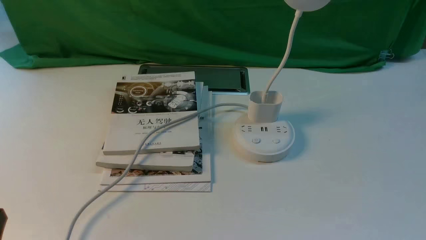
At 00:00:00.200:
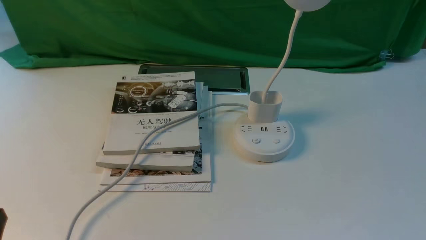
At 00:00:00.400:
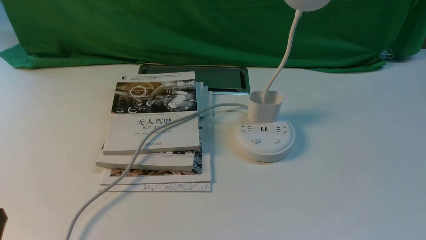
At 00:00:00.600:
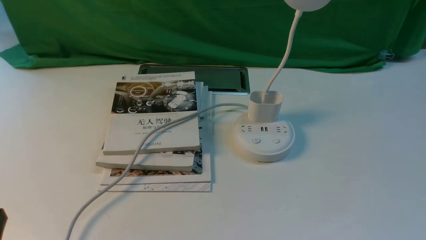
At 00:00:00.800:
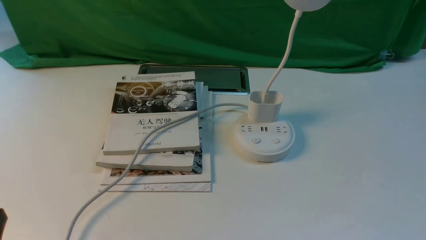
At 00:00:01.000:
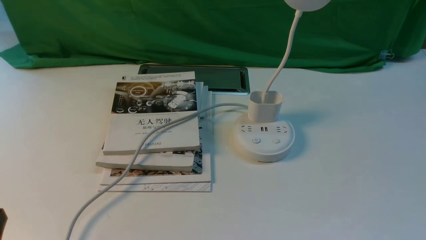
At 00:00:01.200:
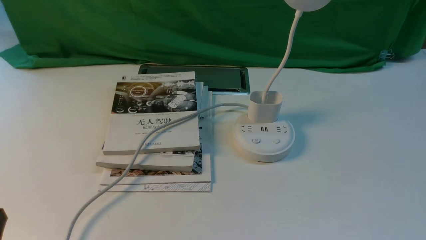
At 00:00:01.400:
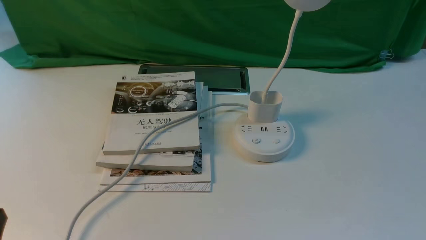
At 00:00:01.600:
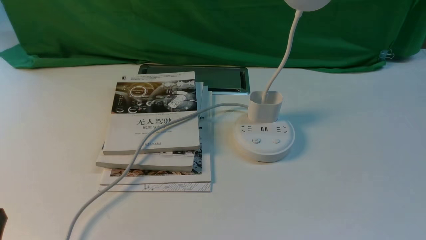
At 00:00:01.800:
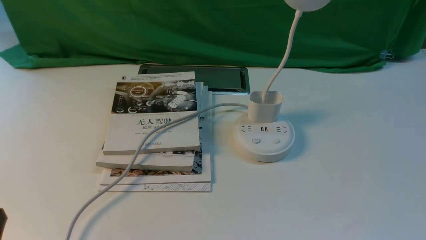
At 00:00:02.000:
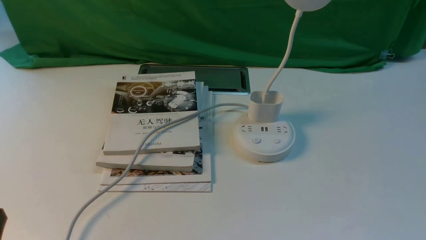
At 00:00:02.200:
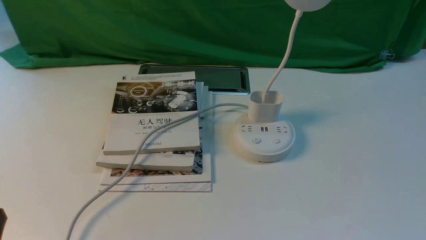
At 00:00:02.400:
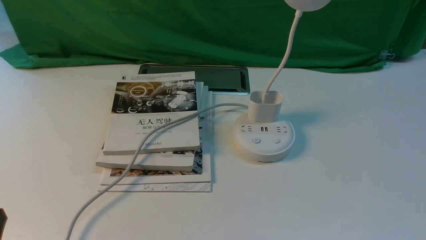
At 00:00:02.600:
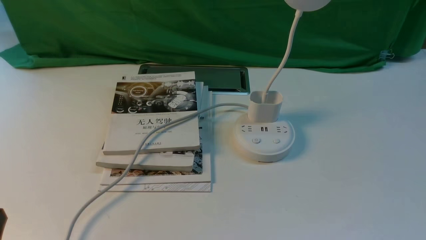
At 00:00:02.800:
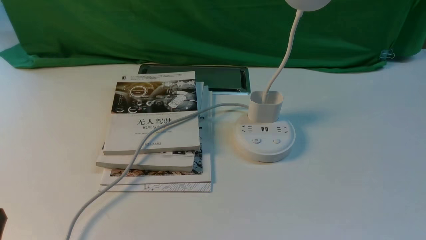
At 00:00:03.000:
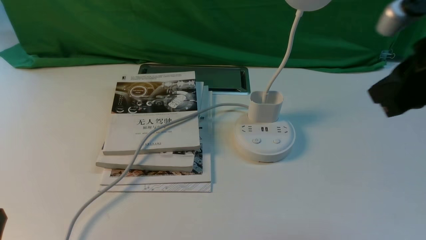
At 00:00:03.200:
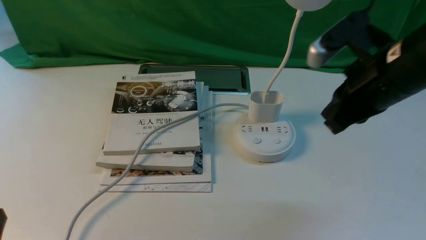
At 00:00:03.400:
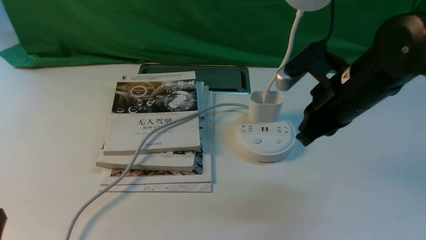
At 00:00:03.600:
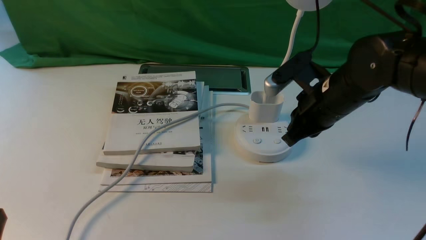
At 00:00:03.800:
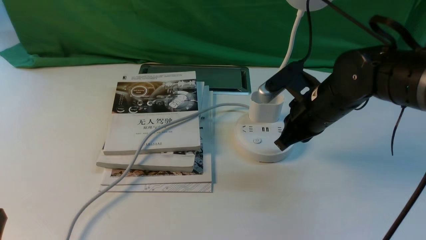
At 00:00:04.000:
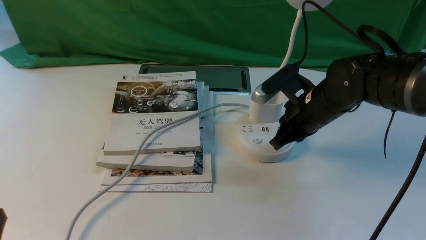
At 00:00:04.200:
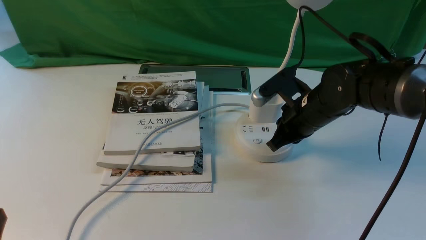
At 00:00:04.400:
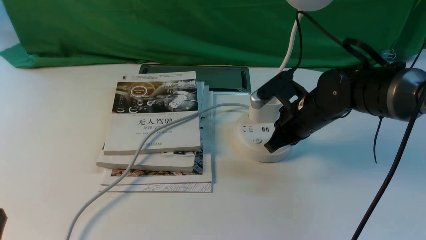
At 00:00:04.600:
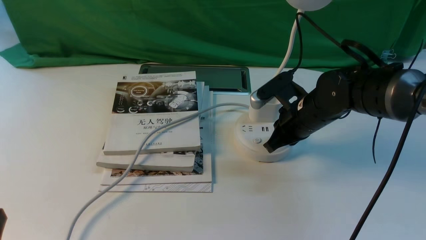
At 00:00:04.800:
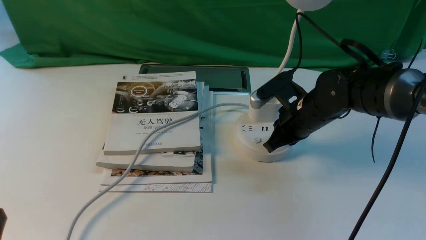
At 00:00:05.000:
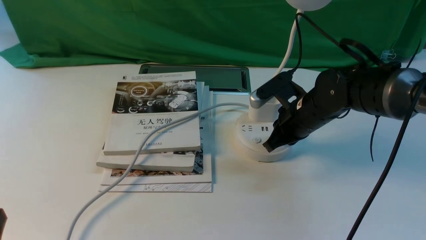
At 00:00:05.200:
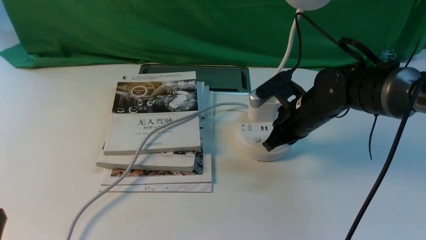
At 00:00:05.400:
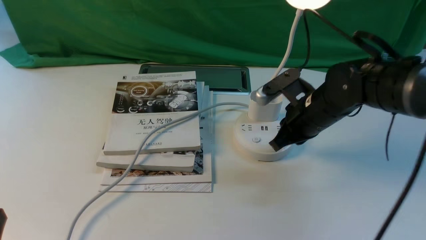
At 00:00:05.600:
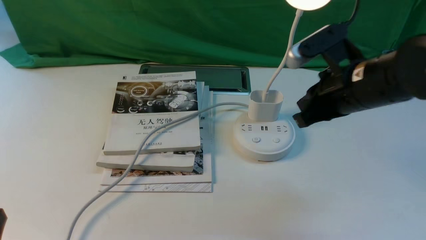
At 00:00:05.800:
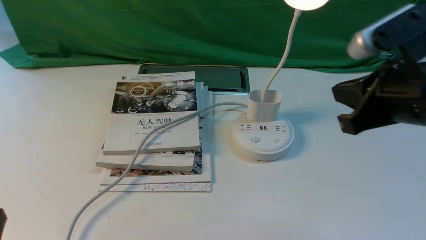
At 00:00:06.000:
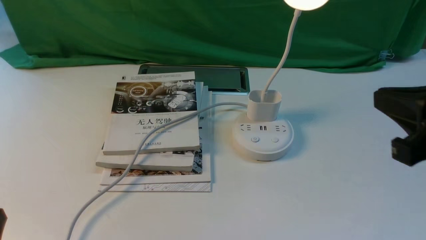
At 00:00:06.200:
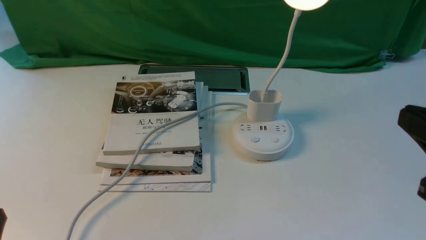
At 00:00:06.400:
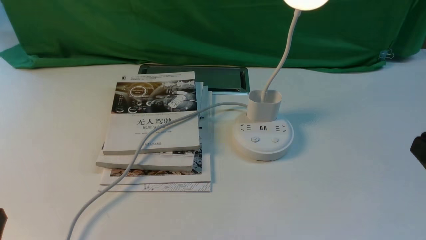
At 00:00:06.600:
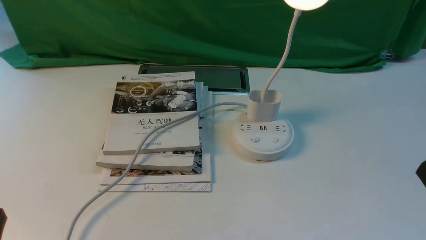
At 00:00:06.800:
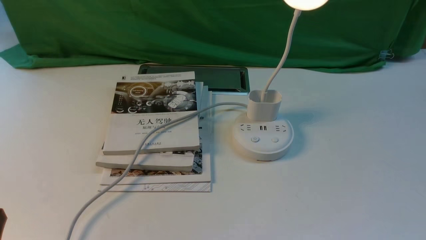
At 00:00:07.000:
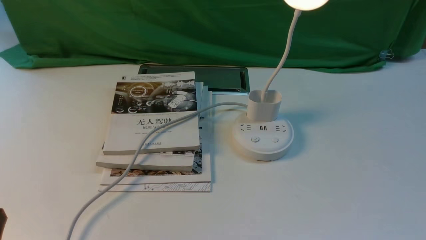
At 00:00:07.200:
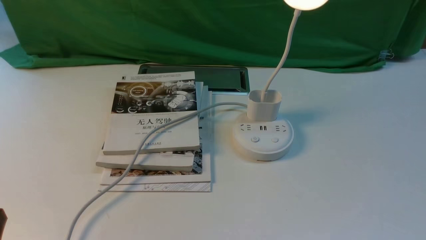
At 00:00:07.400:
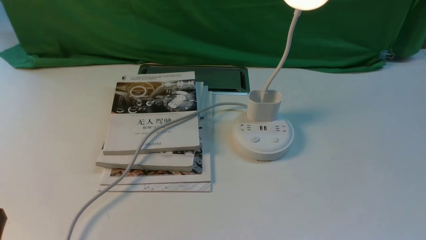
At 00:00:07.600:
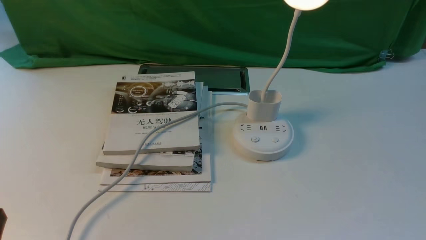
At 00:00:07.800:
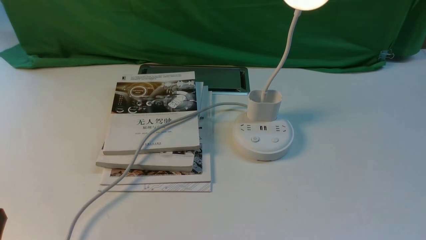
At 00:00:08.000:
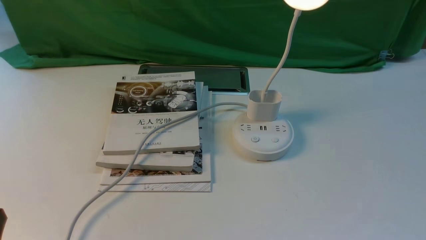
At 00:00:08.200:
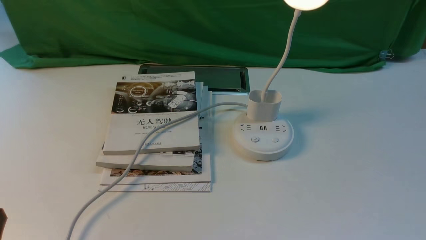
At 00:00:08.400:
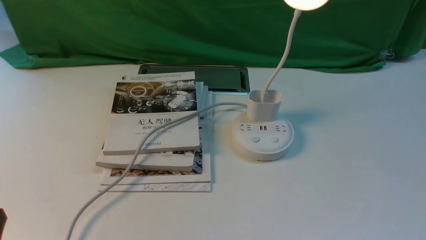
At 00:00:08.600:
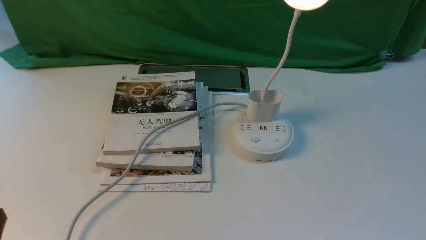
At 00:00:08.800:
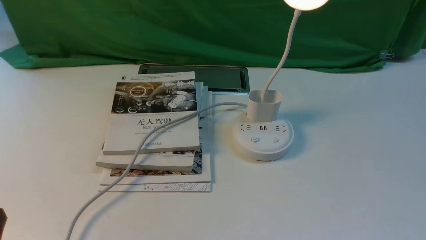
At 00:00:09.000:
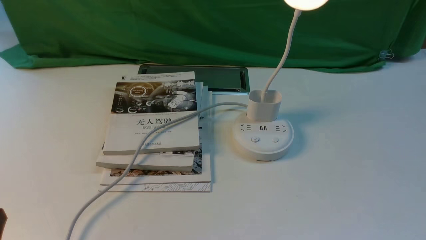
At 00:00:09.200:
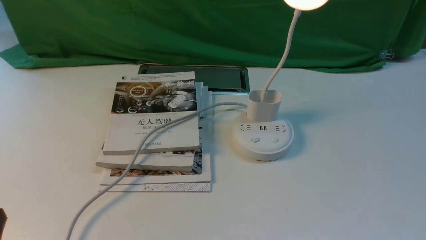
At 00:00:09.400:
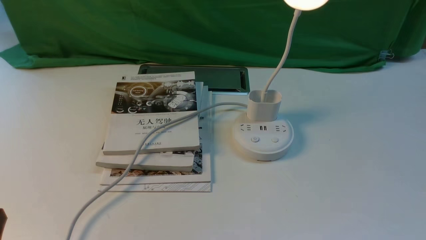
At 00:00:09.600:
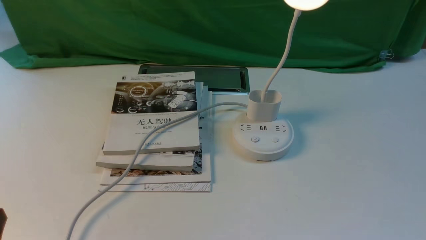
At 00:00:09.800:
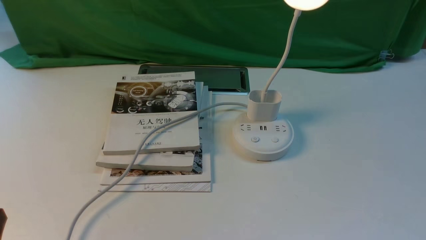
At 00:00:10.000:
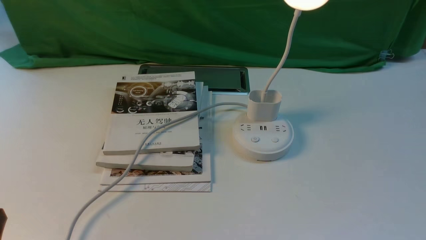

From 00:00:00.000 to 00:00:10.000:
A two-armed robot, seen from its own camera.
Step, from 00:00:00.000 to 00:00:05.600: use the right arm to press the button switch on the lamp holder.
From 00:00:02.800 to 00:00:04.200: The right gripper travels downward, forward and to the left by roughly 30 cm.
From 00:00:04.200 to 00:00:05.800: The right gripper moves upward, backward and to the right, some 20 cm.
From 00:00:05.800 to 00:00:07.200: The right gripper travels backward, downward and to the right by roughly 25 cm, and opens up.
From 00:00:07.200 to 00:00:10.000: The two grippers keep their place.
